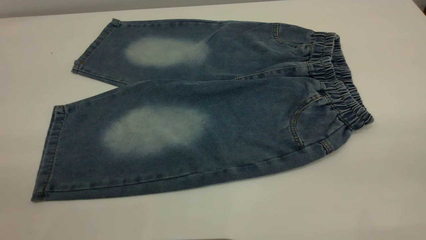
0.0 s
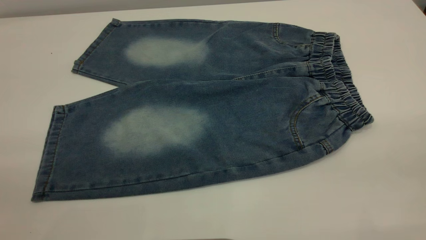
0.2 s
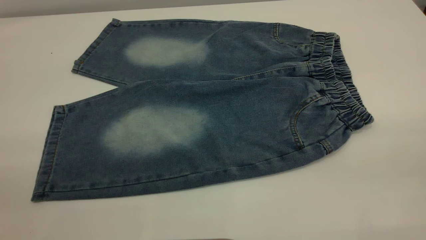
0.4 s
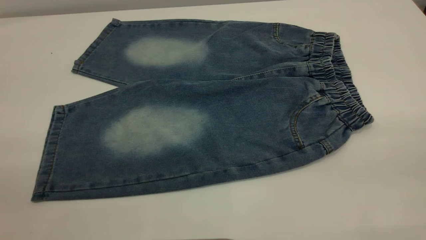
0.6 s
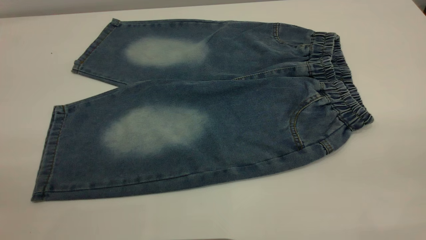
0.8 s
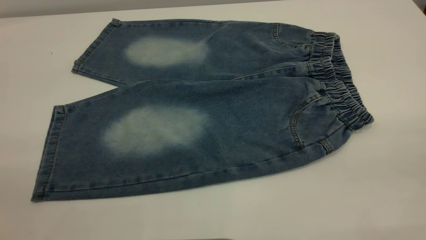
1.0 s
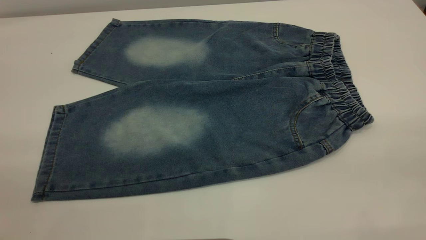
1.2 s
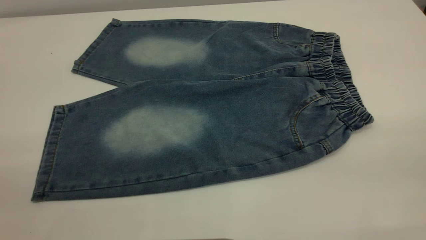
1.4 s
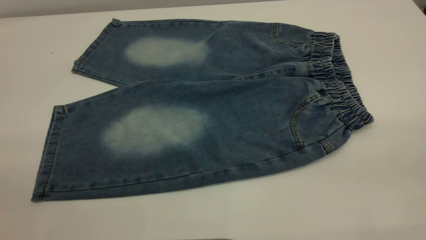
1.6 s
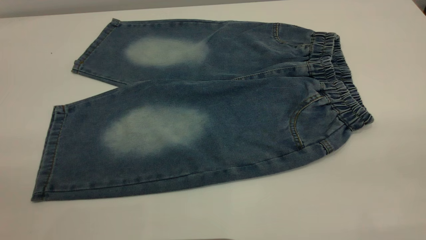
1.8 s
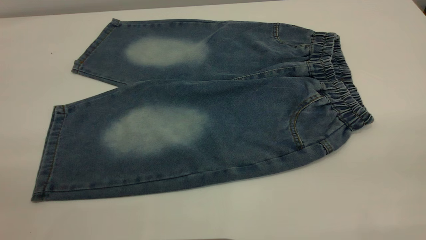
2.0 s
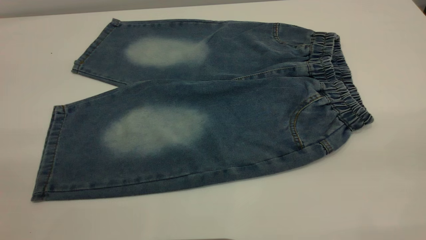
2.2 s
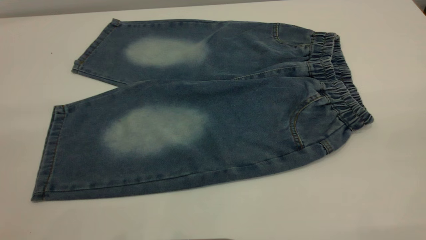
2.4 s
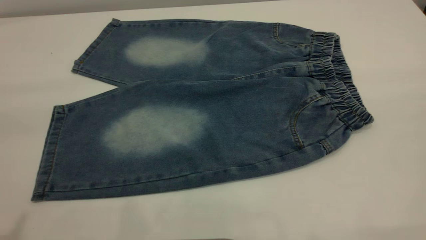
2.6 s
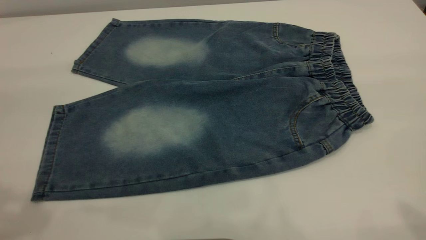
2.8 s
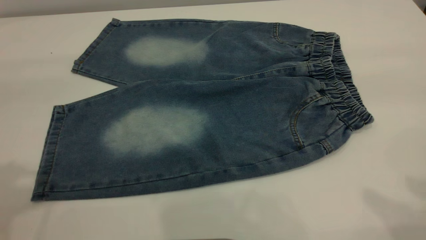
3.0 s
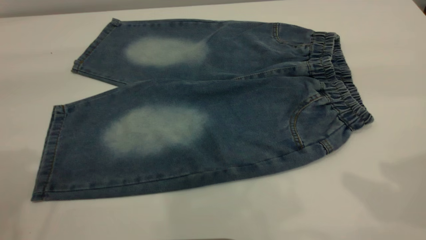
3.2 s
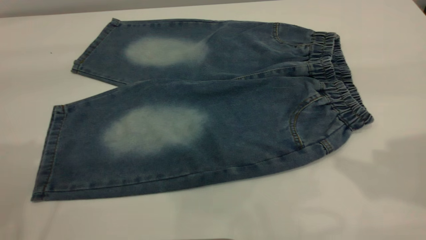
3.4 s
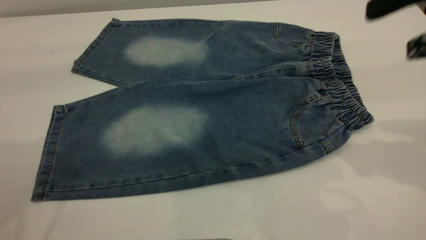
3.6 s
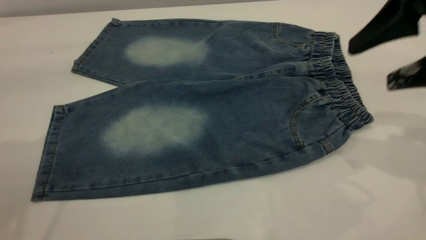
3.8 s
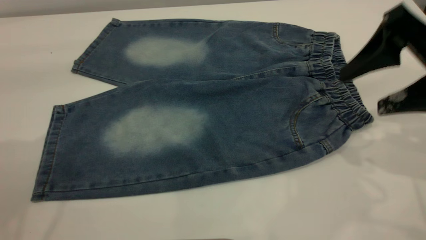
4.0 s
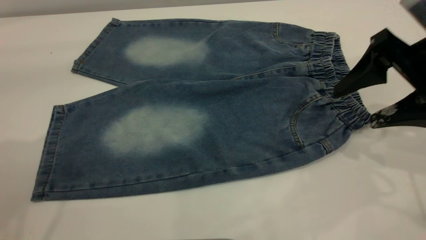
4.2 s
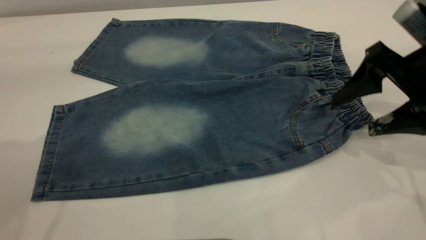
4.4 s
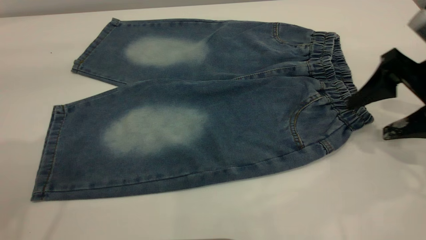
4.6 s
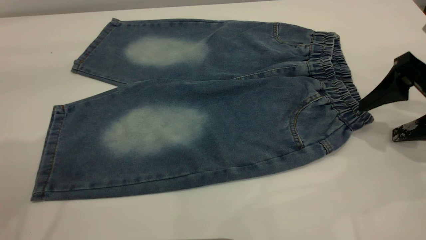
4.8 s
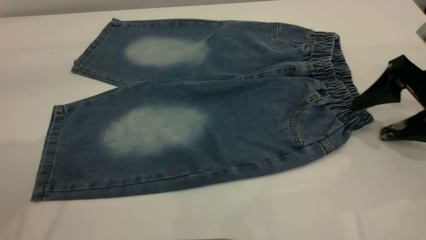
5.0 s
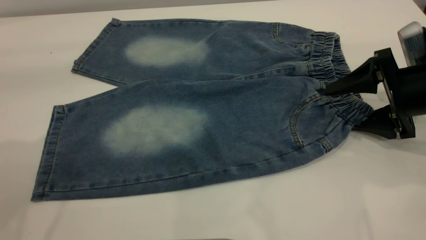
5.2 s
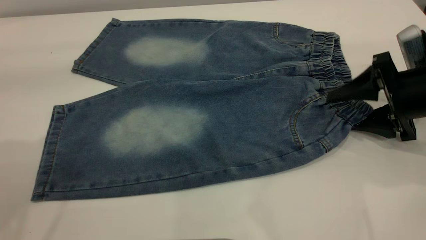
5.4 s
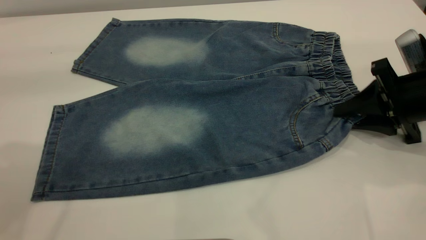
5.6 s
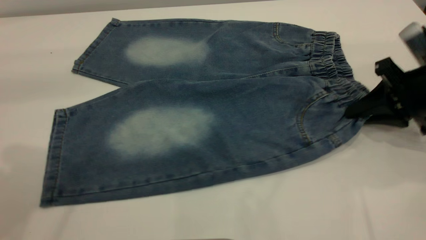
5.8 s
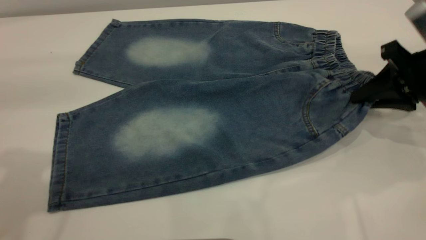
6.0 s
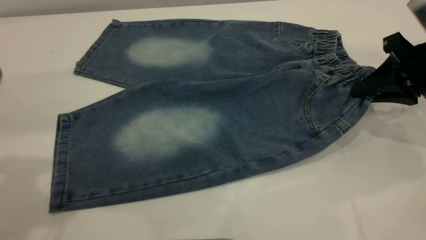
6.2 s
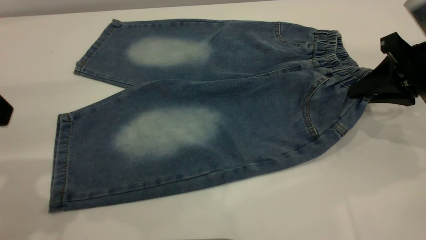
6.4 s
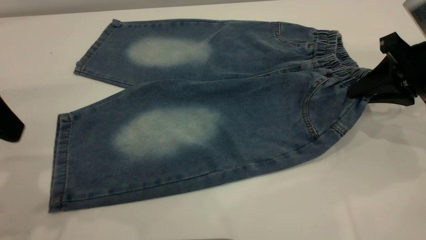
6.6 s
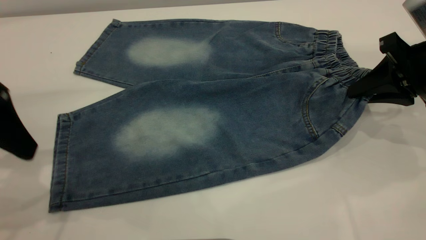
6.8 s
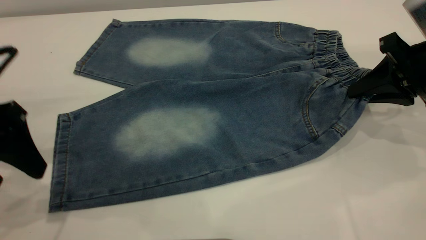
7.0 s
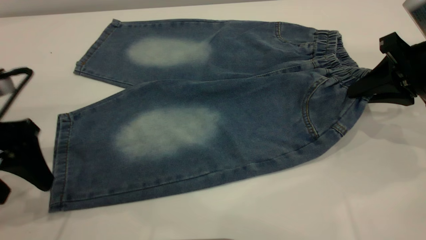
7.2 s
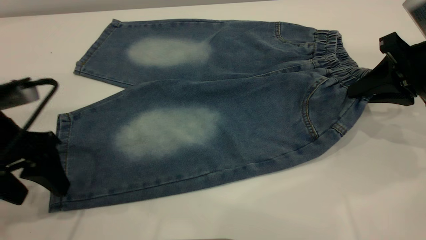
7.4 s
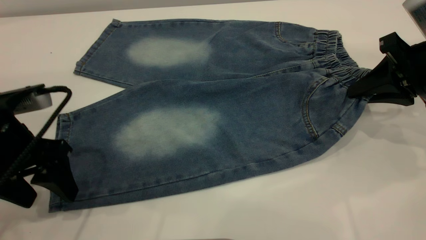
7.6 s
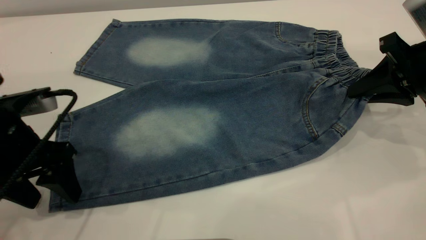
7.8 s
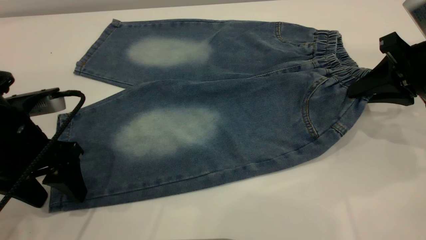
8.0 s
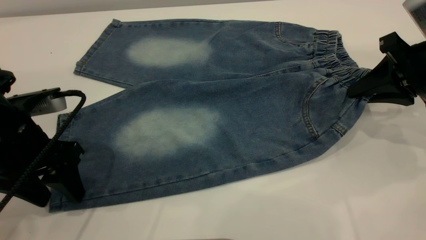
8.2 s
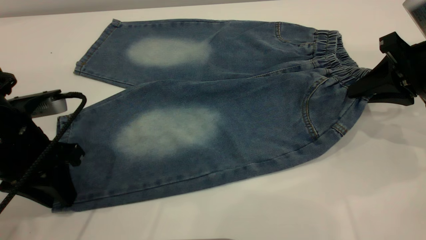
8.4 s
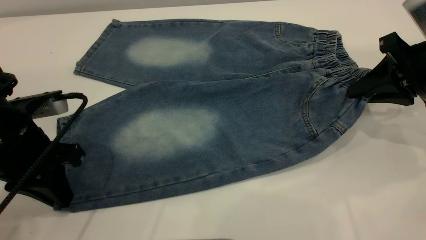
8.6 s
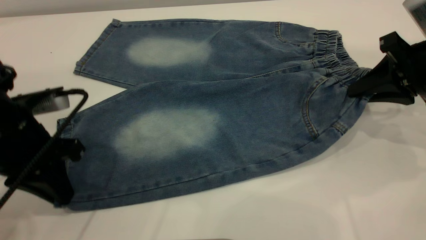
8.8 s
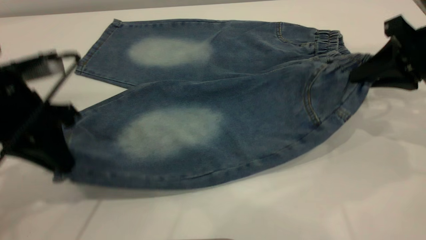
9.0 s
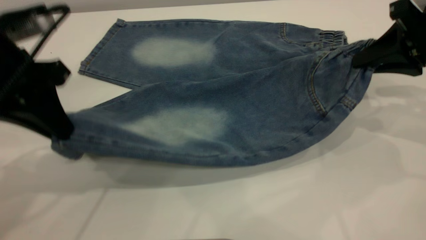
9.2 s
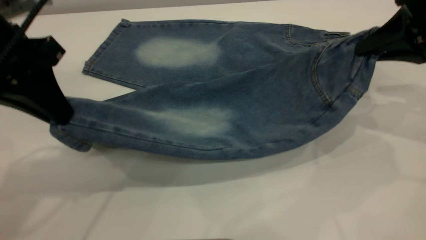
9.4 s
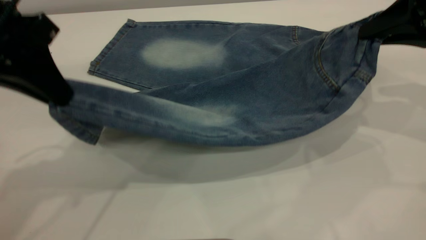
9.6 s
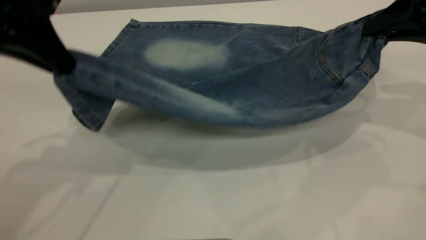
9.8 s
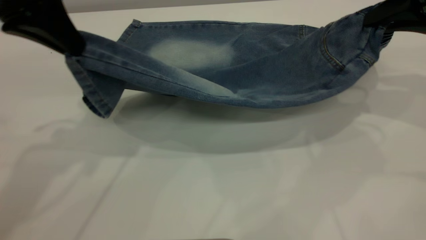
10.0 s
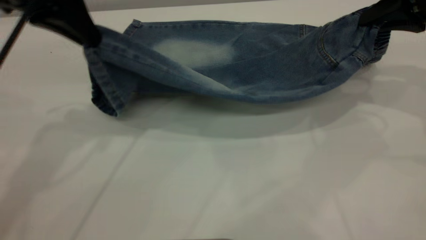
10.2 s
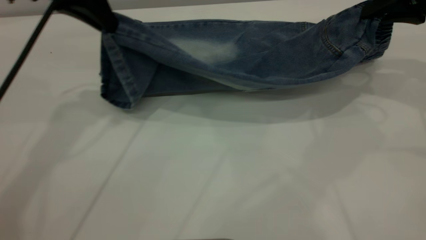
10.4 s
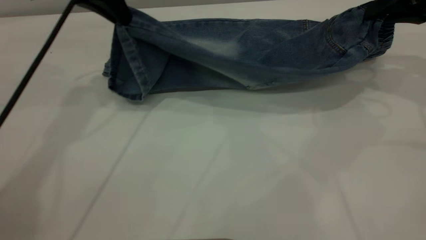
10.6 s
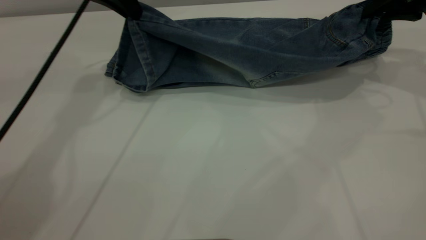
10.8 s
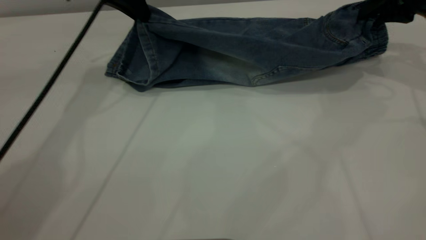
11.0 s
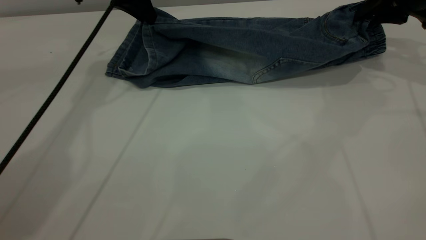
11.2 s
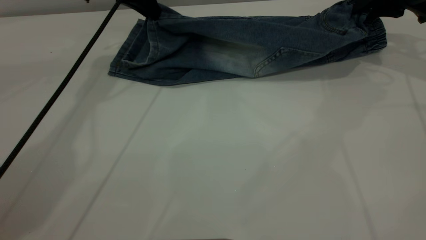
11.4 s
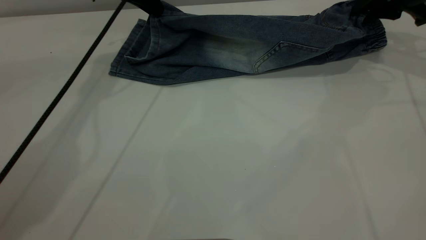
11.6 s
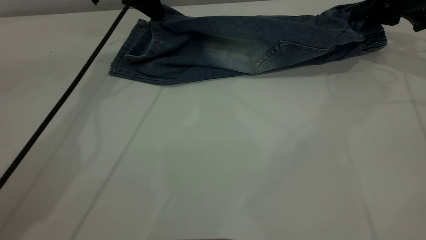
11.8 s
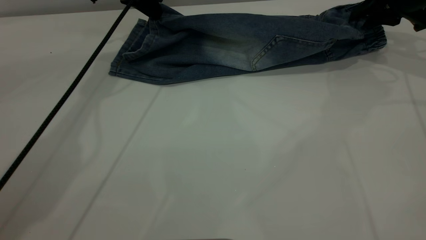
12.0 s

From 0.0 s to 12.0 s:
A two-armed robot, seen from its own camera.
From 0.0 s to 1.6 s: Both grippers stay put.
From 3.0 s to 4.4 s: The right gripper travels downward and forward by roughly 25 cm.
From 4.4 s to 6.0 s: The right gripper closes up.
From 6.0 s to 7.6 s: The left gripper shifts approximately 20 cm downward.
From 7.6 s to 9.0 s: The left gripper ends up about 5 cm from where it was, and closes.
From 9.0 s to 10.4 s: The right gripper moves forward, about 5 cm. Meanwhile the left gripper goes roughly 15 cm forward and upward.
From 10.4 s to 12.0 s: The left gripper goes about 15 cm forward and downward, while the right gripper is displaced forward by about 10 cm.

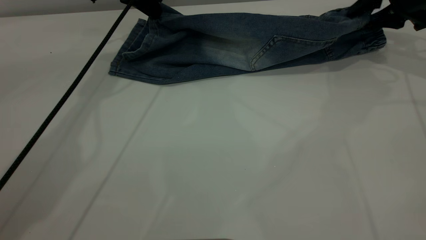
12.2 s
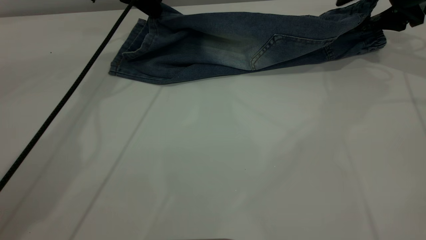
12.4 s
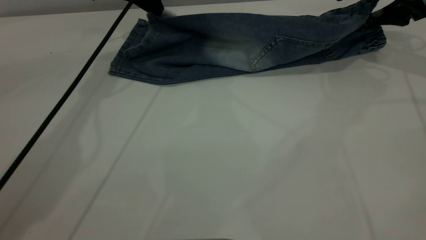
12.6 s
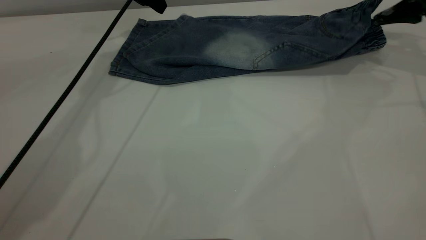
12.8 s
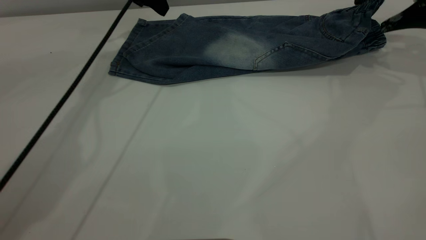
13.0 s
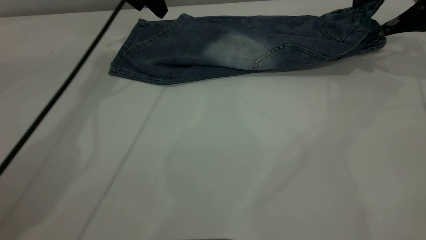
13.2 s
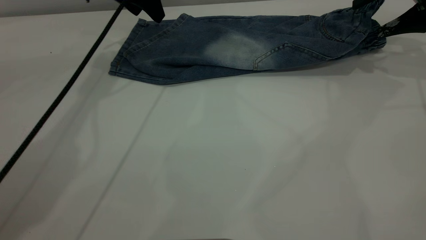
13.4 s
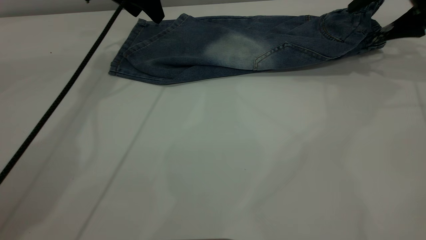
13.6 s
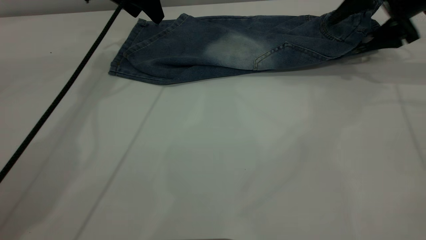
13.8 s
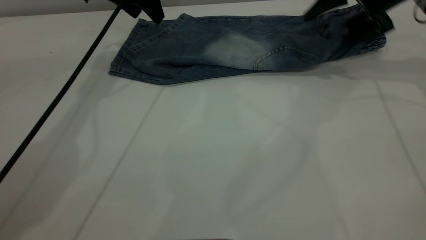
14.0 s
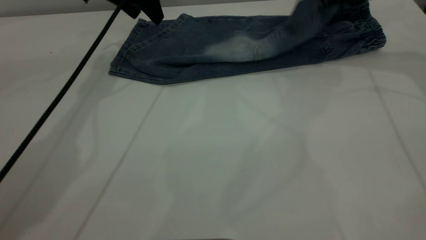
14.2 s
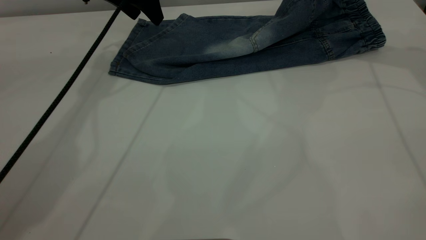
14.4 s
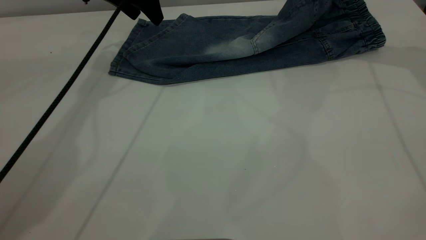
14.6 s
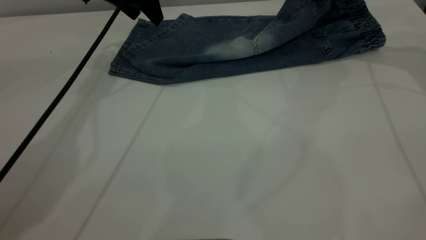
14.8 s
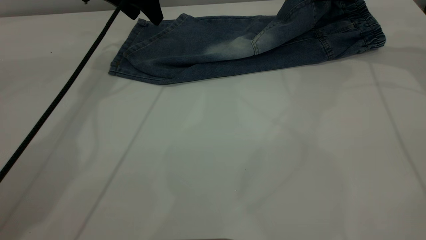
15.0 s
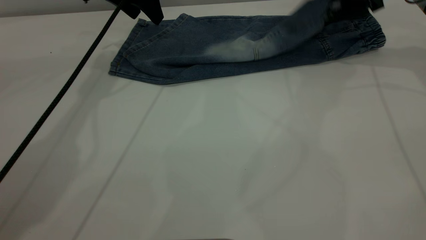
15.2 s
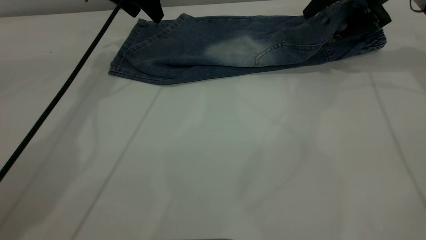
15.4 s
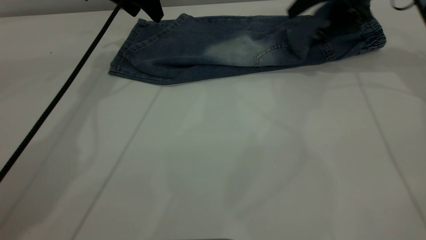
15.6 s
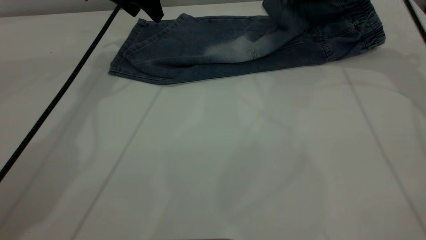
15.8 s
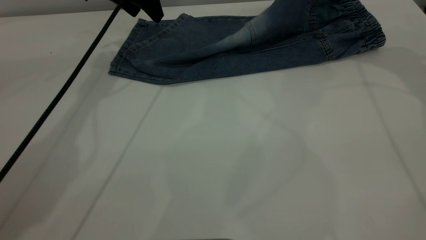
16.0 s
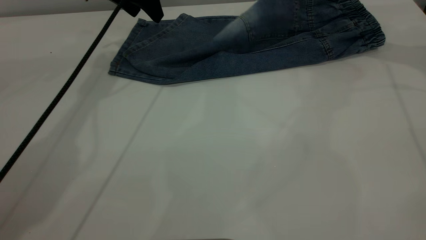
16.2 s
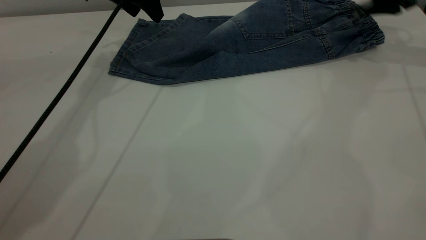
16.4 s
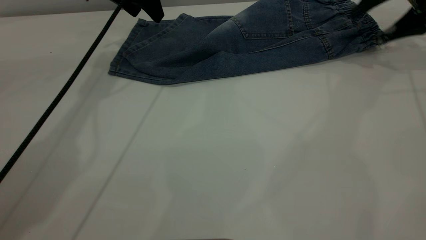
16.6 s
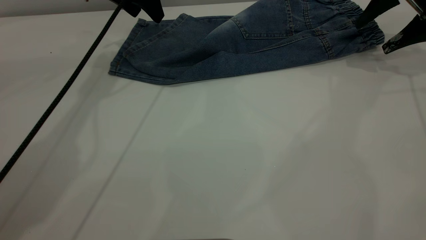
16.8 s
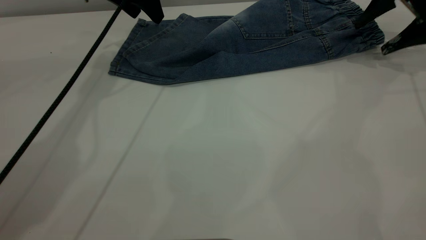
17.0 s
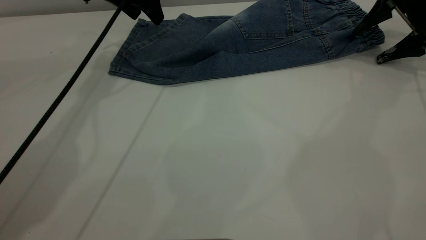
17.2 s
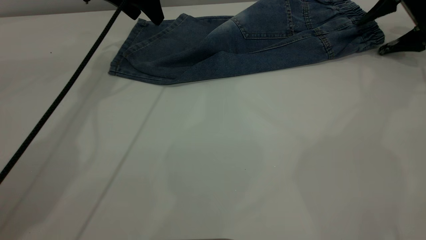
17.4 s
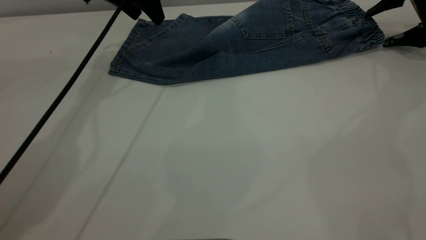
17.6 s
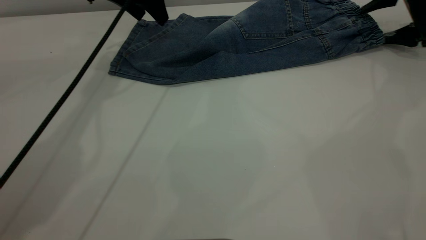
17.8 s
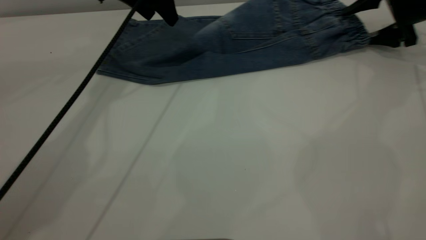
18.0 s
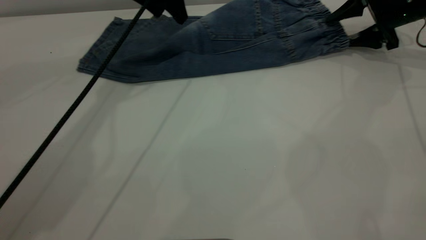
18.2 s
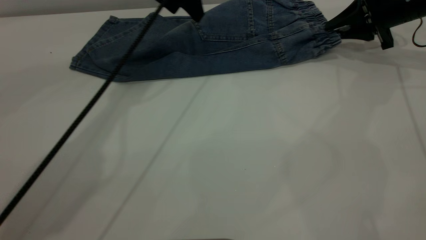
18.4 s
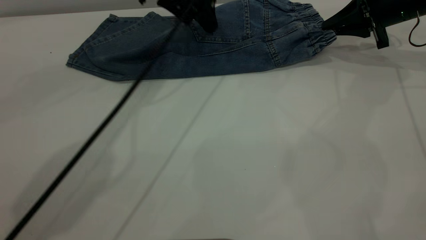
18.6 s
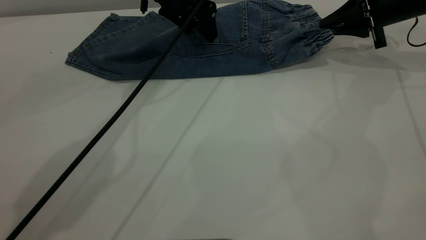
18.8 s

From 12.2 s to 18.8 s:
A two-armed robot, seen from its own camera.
Step, from 12.2 s to 16.8 s: Fold the bottom of the pants upward.
From 12.2 s to 13.8 s: The left gripper opens.
From 15.4 s to 17.2 s: The right gripper heads to the right, covering roughly 10 cm.
From 17.2 s to 18.8 s: The right gripper goes approximately 5 cm to the left, and closes its fingers, while the left gripper travels to the right by approximately 10 cm.
